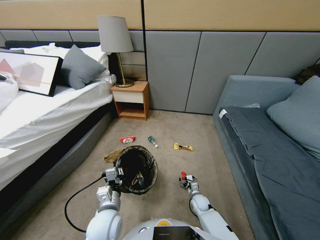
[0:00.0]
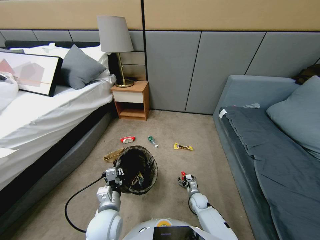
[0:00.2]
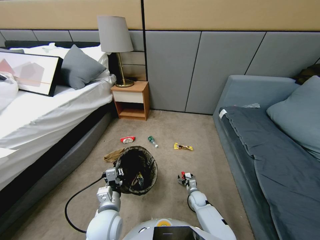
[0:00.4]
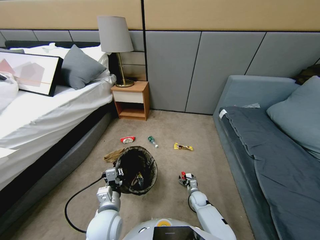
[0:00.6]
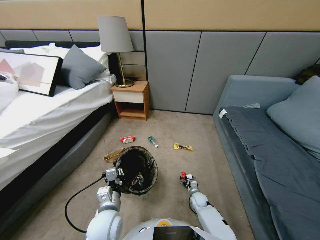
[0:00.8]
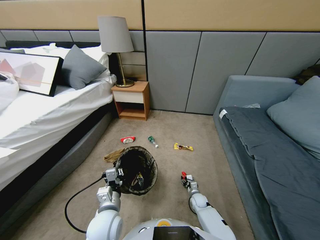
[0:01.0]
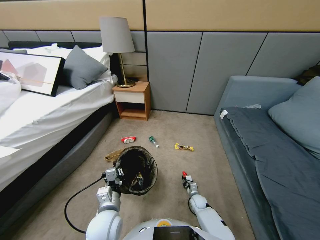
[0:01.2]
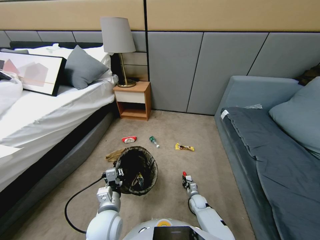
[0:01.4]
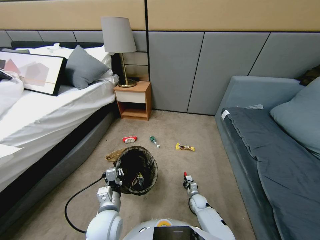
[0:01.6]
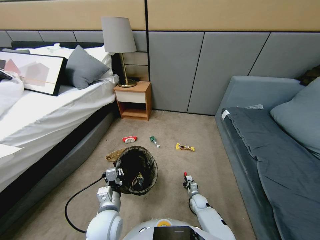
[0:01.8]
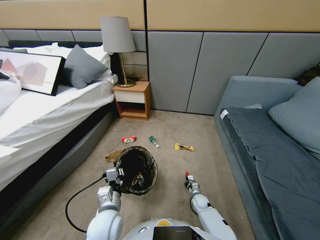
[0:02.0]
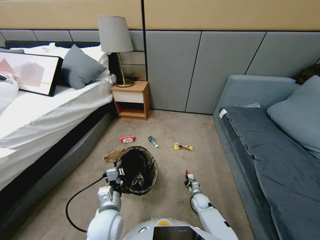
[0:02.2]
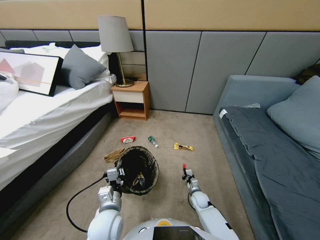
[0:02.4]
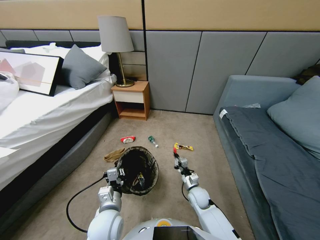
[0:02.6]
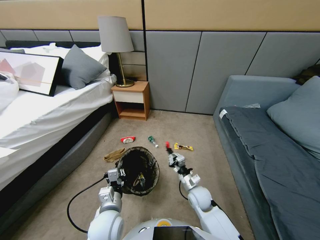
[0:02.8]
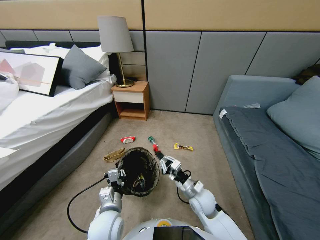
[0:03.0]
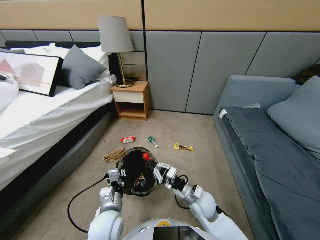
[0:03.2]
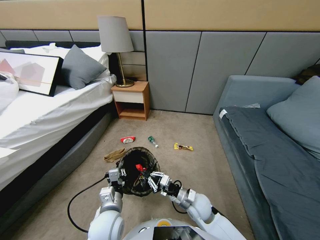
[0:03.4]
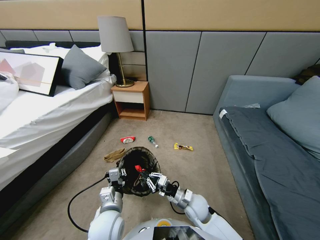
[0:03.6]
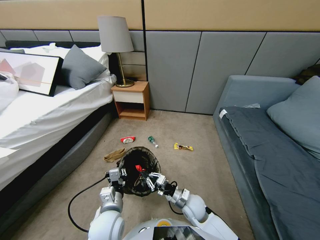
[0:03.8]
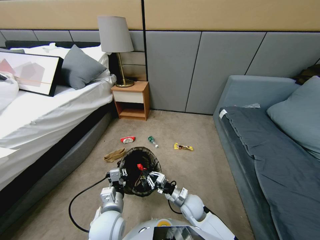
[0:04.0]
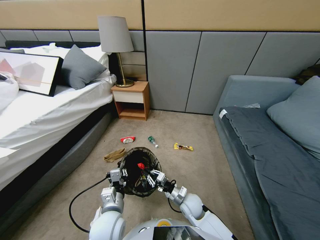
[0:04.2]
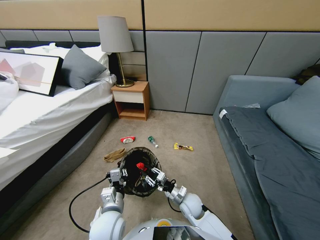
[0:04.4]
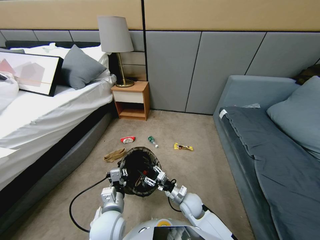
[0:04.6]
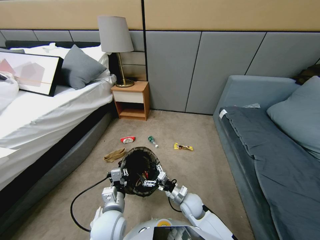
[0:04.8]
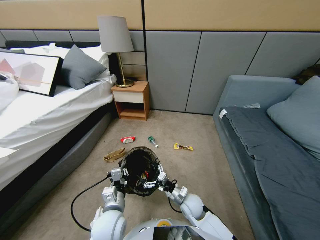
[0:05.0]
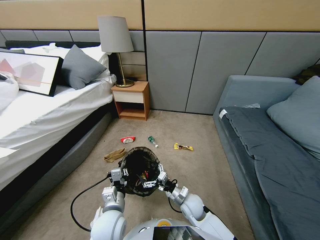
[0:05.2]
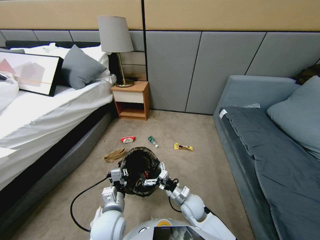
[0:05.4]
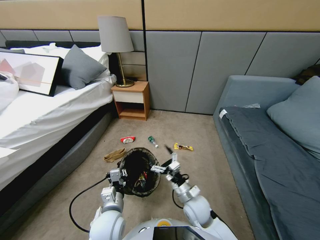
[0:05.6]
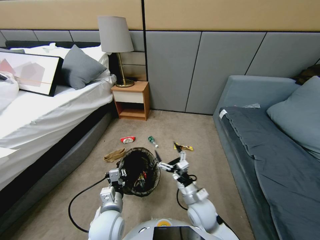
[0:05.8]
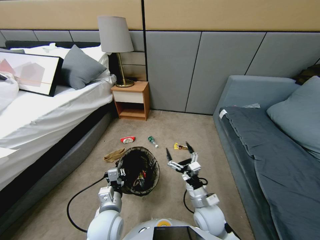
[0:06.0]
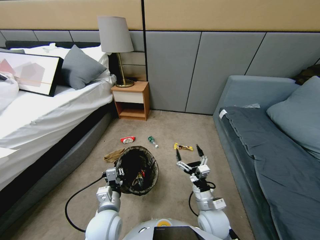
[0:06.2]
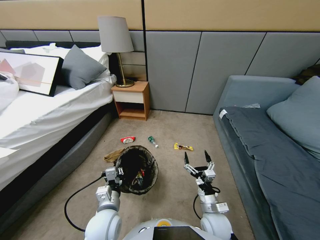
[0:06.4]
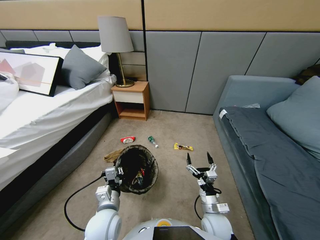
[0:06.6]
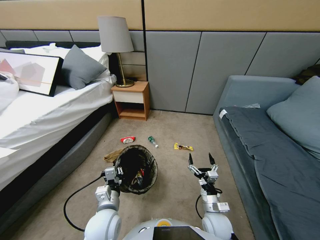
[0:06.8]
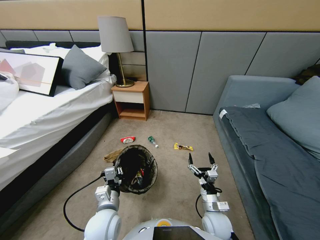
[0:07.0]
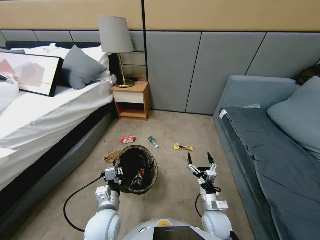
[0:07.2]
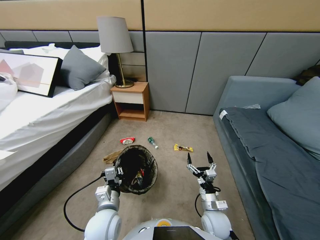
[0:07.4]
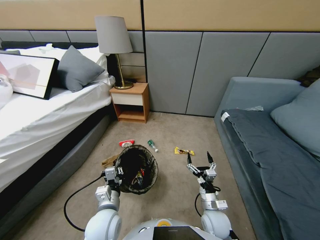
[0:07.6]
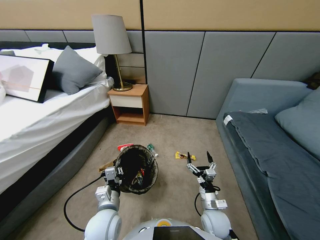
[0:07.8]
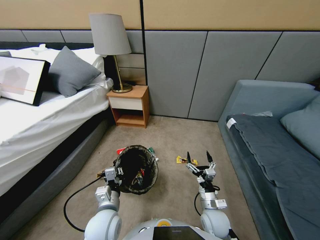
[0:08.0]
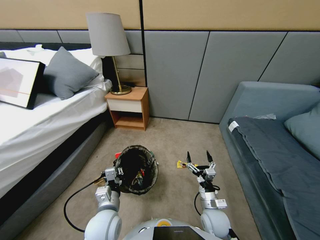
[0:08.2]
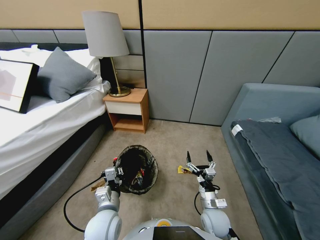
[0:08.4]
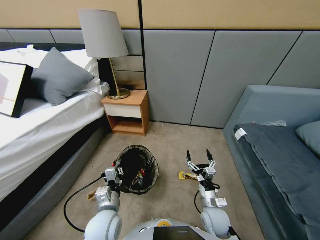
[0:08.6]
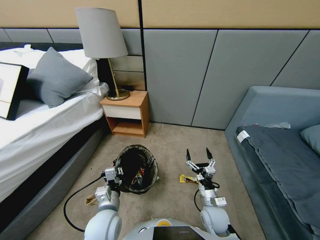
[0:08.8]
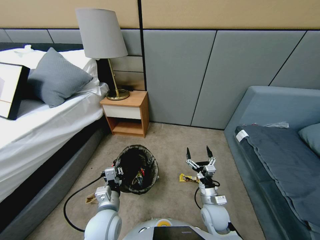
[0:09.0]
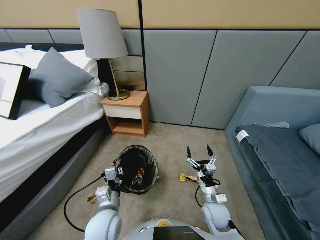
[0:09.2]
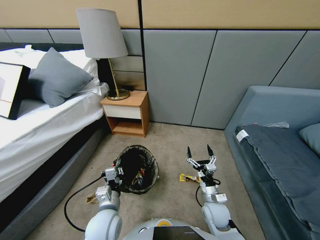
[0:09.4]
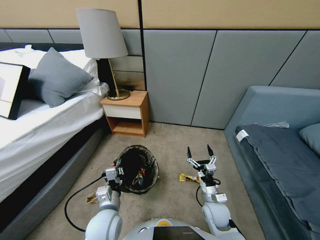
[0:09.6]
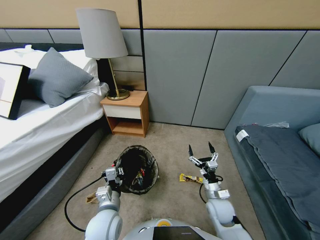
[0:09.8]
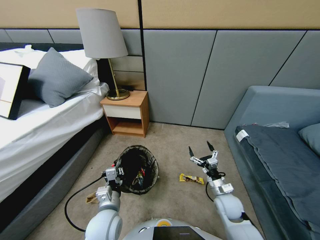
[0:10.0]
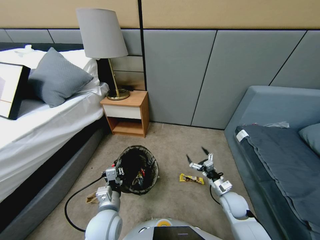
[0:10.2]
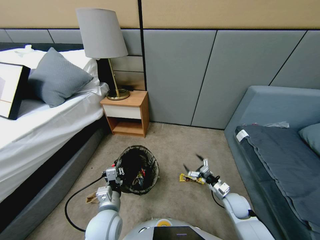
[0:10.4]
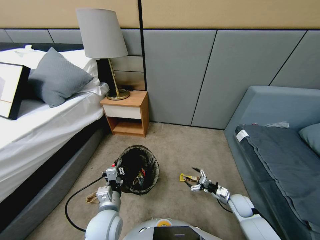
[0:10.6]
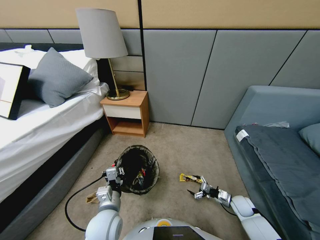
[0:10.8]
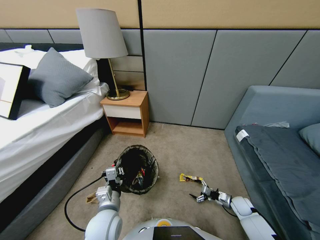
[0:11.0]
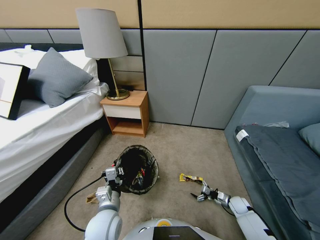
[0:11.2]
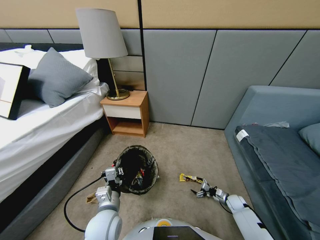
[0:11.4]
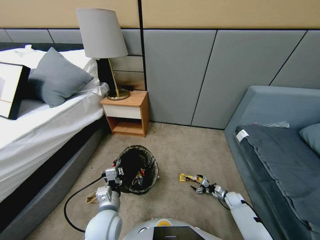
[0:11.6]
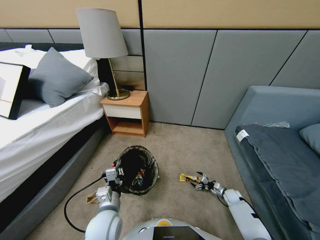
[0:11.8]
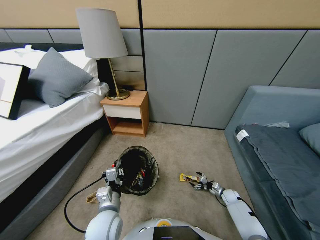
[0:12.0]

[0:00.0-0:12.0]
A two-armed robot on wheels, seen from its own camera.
Task of the whole recording: Pick up the trash bin, then pick up the garbage from the floor and place it into the trash bin.
0:00.0 to 0:01.6: The right gripper closes.
0:01.6 to 0:03.0: The right gripper goes roughly 25 cm upward.
0:03.0 to 0:04.4: The right gripper travels downward by approximately 5 cm, and opens.
0:04.4 to 0:06.0: The right gripper goes some 10 cm upward and backward, and opens.
0:06.0 to 0:07.6: The right gripper moves downward, about 5 cm.
0:09.0 to 0:10.4: The right gripper is displaced to the right by roughly 15 cm.
0:10.4 to 0:12.0: The right gripper goes roughly 15 cm downward and forward.

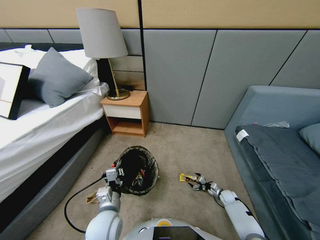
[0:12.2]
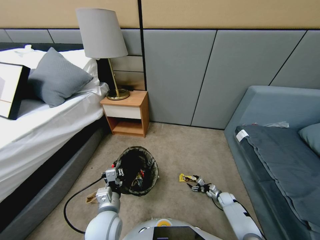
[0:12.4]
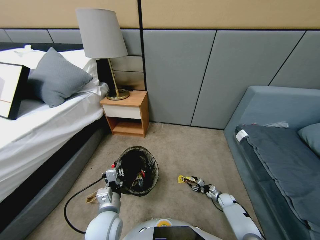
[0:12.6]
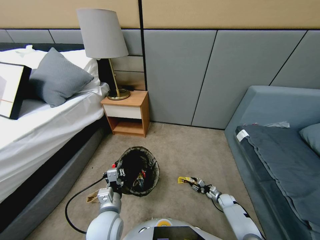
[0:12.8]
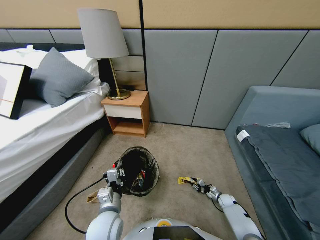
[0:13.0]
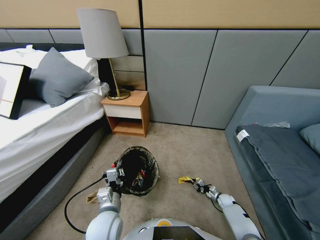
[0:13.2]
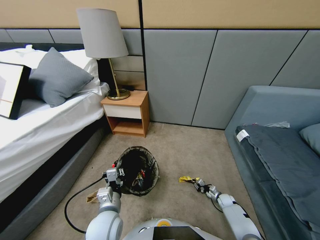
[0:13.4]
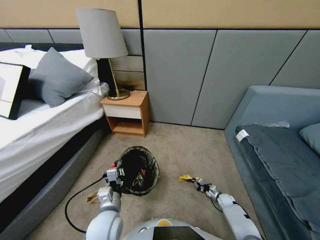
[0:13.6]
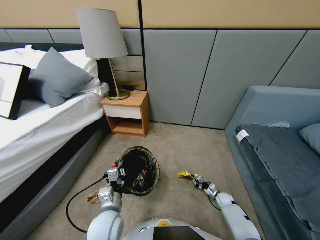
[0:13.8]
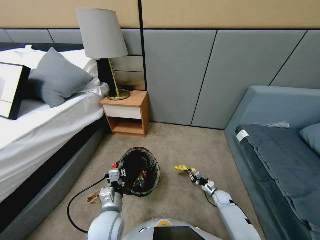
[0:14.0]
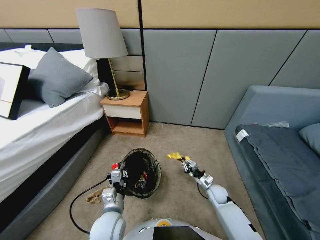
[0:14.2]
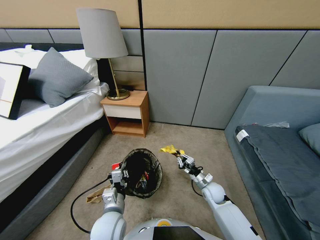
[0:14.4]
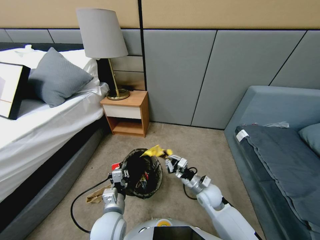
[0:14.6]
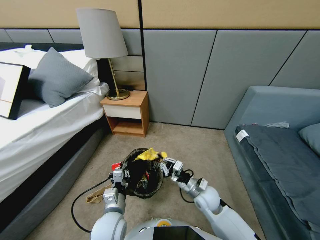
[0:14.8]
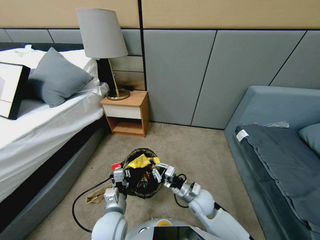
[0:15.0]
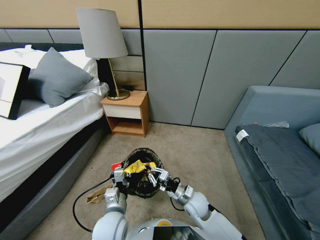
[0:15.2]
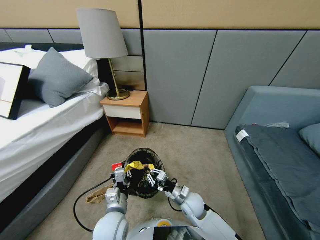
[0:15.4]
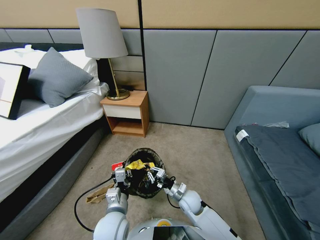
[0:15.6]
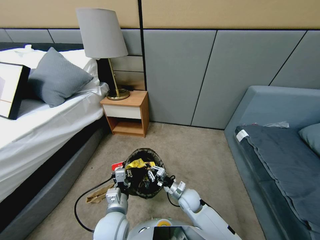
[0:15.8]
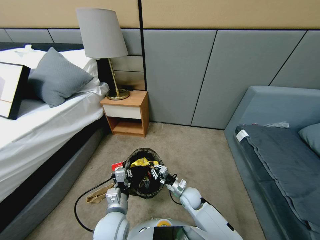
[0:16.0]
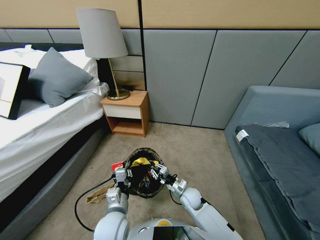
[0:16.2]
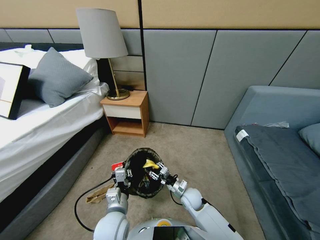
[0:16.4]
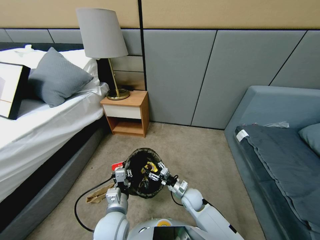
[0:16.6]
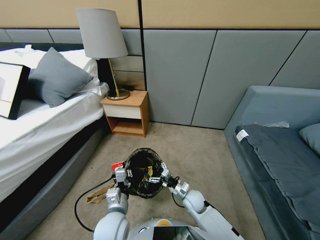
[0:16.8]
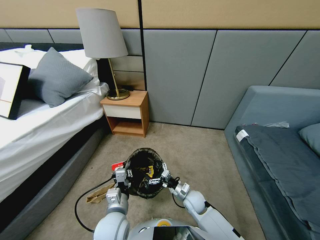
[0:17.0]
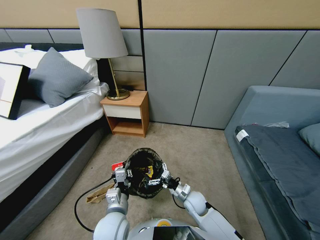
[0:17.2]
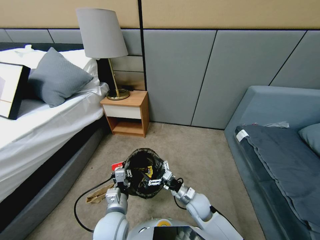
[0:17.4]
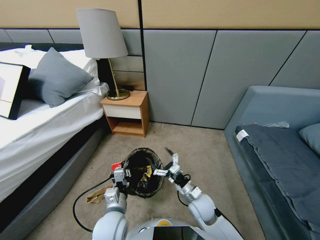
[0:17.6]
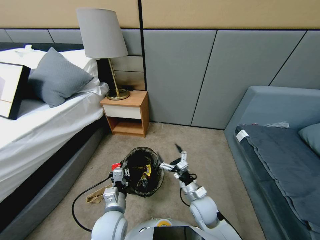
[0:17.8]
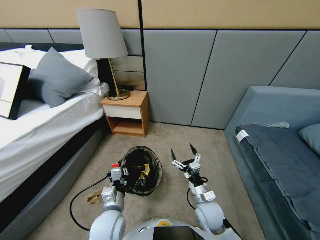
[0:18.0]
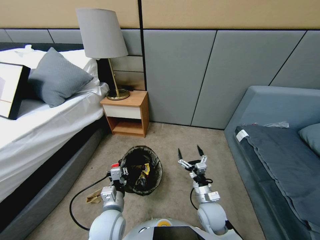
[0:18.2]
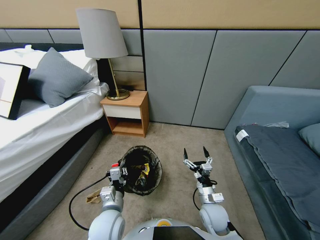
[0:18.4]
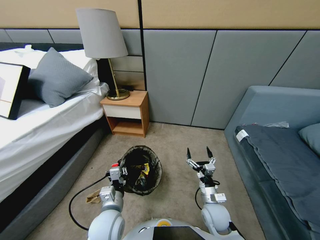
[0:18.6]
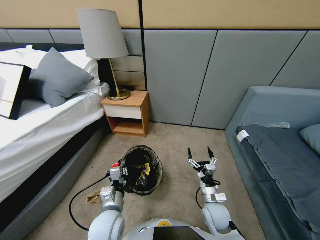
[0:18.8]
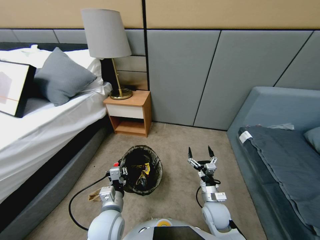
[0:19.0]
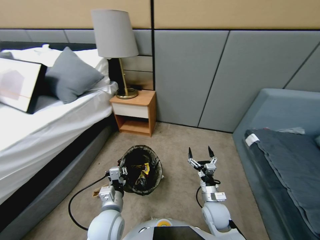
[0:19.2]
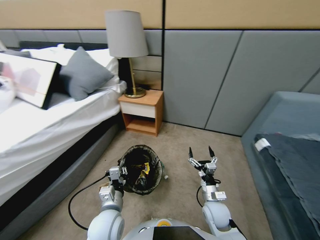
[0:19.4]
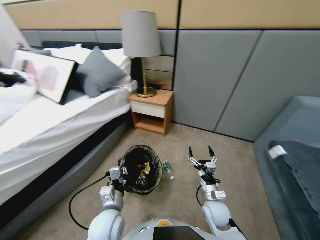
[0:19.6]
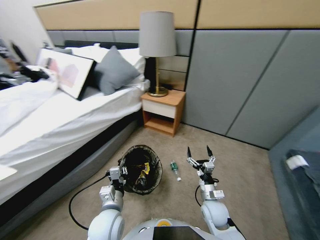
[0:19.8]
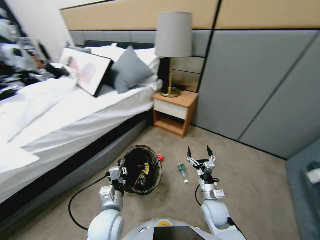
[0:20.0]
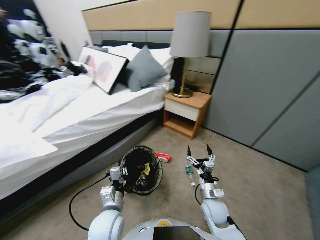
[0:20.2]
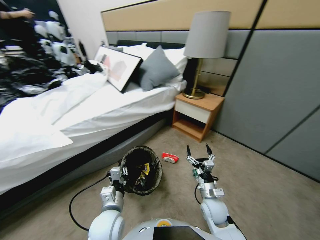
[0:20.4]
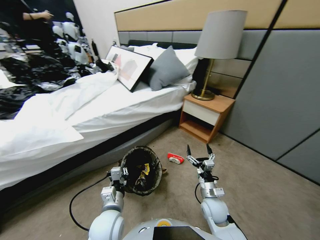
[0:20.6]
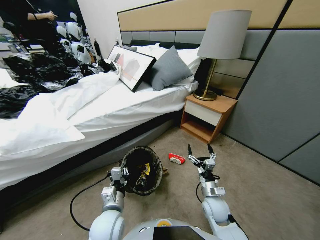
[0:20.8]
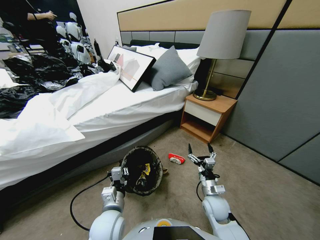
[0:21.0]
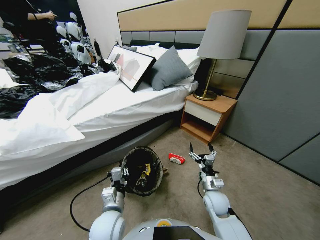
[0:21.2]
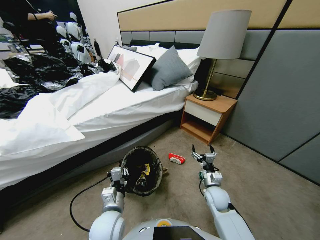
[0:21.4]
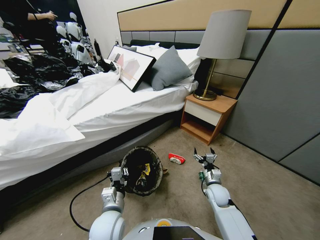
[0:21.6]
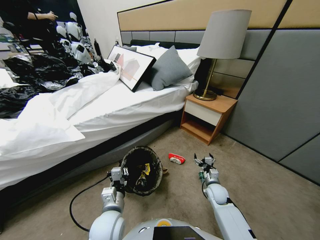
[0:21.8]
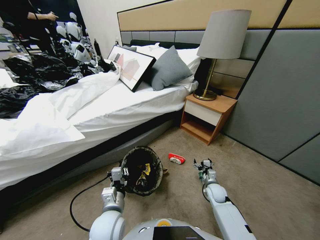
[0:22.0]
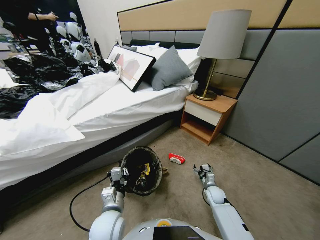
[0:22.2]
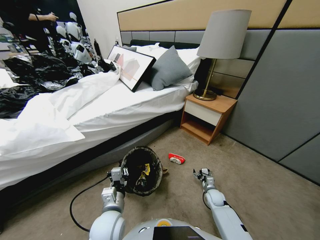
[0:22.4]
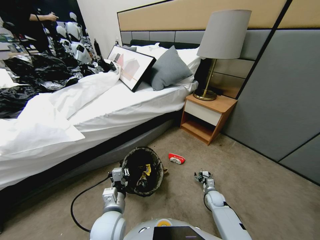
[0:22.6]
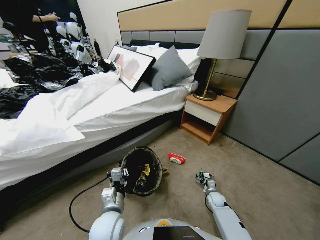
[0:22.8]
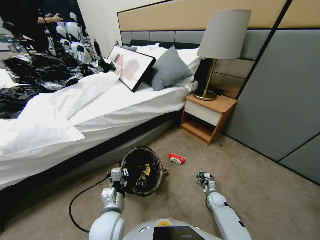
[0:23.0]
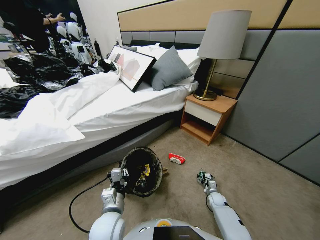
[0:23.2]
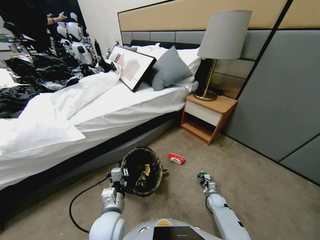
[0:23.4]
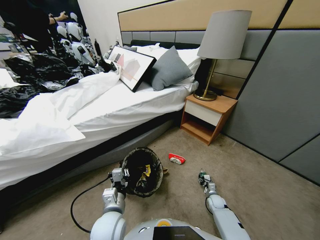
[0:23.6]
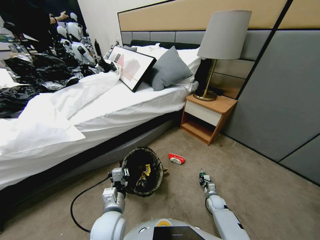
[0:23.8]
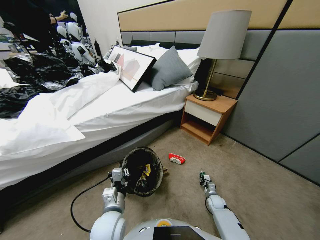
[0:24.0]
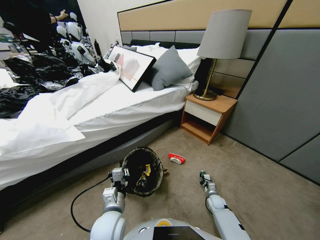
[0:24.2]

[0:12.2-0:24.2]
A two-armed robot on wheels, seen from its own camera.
Task of the whole recording: Pick up the trash bin, then pick up the garbage from the floor and place it into the trash bin.
0:12.2 to 0:13.8: The right gripper shifts by approximately 5 cm, and closes its fingers.
0:13.8 to 0:15.2: The right gripper goes roughly 30 cm to the left and upward.
0:15.2 to 0:16.6: The right gripper ends up approximately 5 cm from where it was, and opens.
0:16.6 to 0:18.2: The right gripper is displaced upward and backward by roughly 10 cm.
0:19.8 to 0:21.2: The right gripper ends up some 5 cm from where it was.
0:21.2 to 0:22.6: The right gripper shifts some 20 cm downward and to the right.
0:22.6 to 0:24.2: The right gripper closes.
